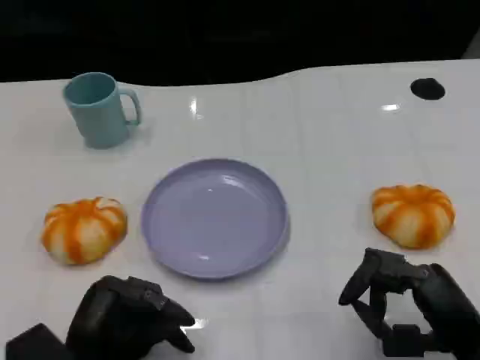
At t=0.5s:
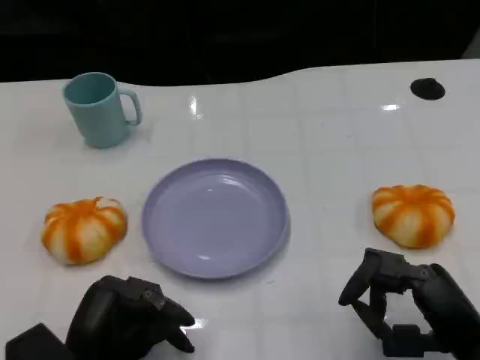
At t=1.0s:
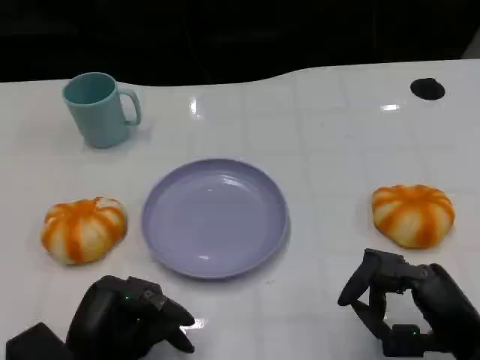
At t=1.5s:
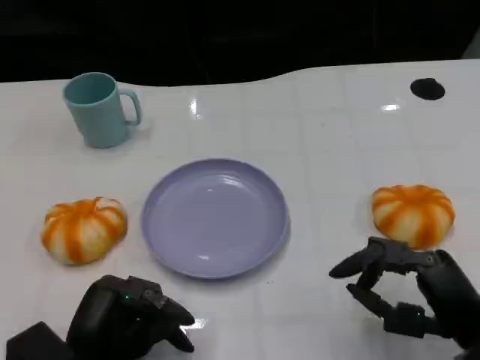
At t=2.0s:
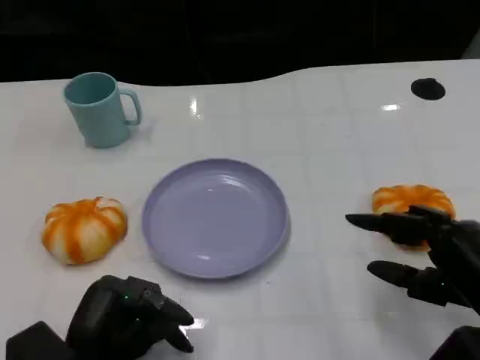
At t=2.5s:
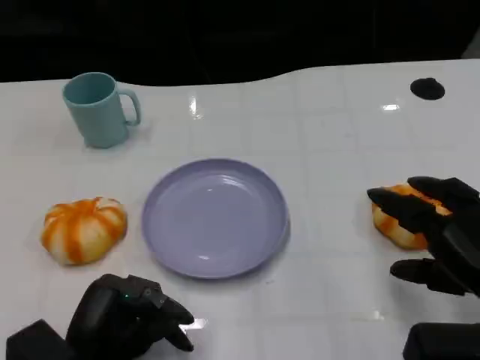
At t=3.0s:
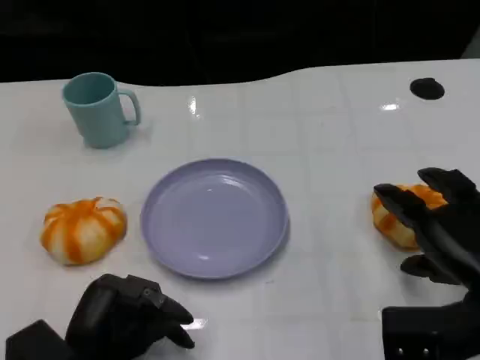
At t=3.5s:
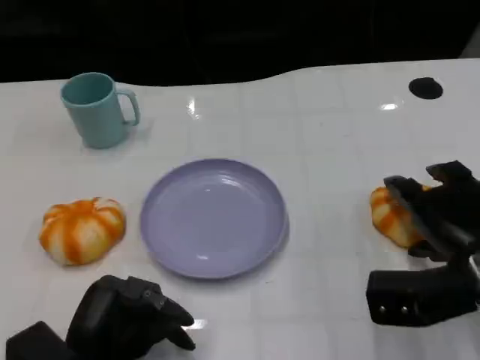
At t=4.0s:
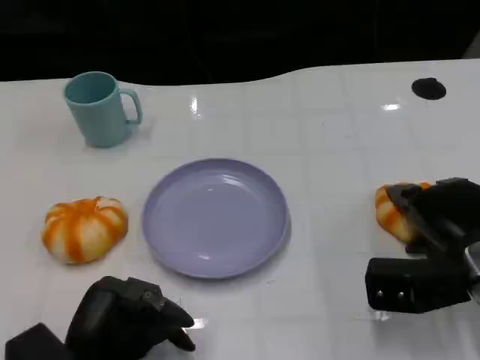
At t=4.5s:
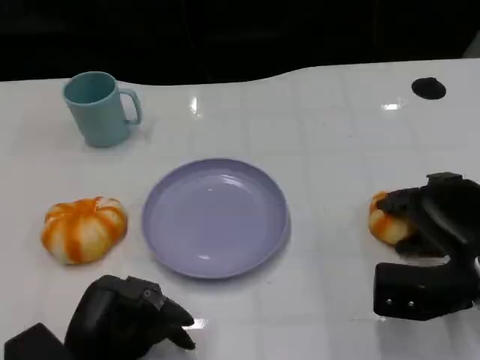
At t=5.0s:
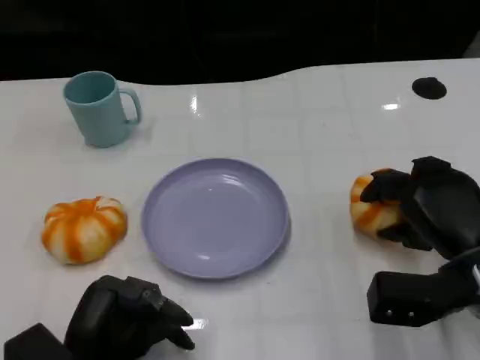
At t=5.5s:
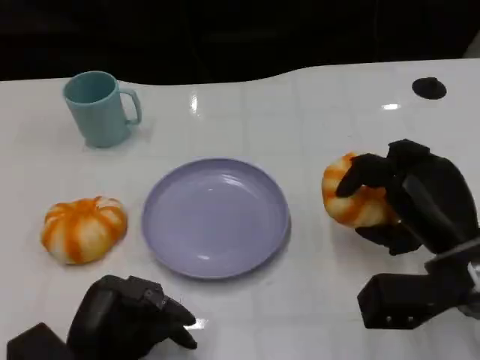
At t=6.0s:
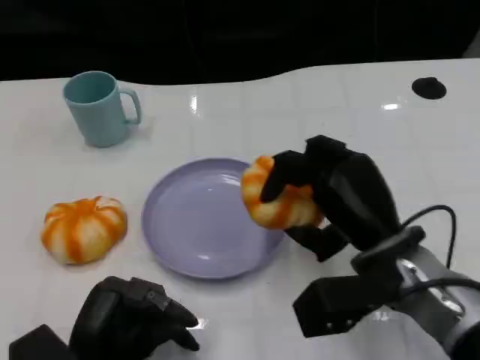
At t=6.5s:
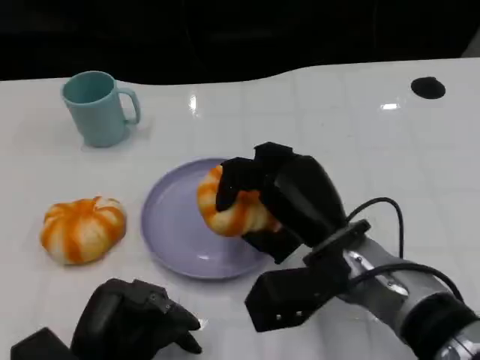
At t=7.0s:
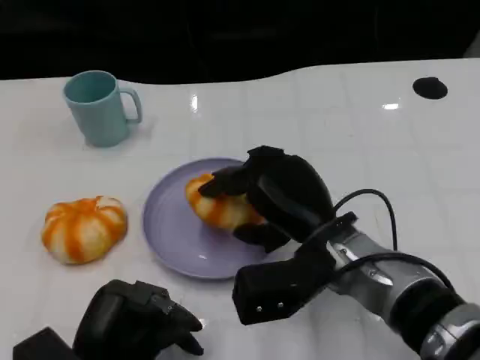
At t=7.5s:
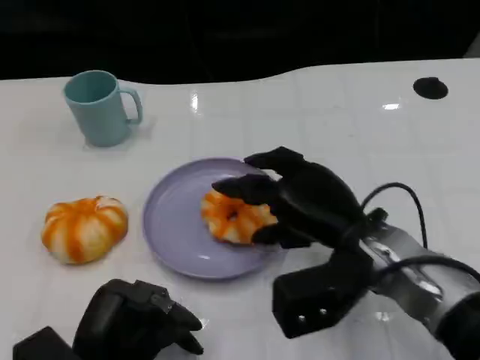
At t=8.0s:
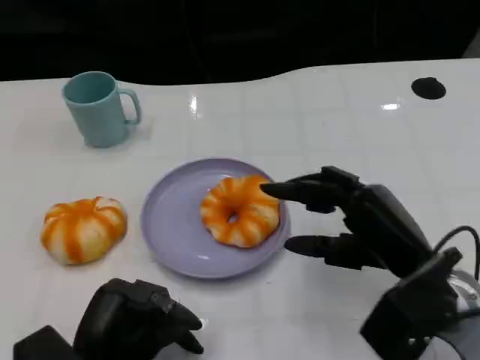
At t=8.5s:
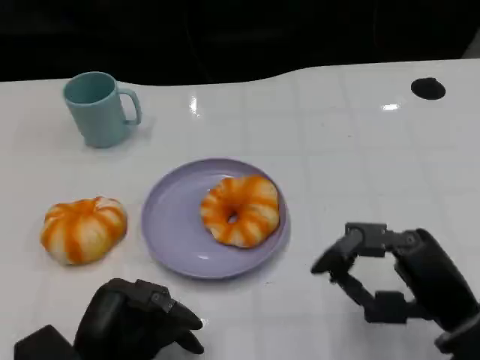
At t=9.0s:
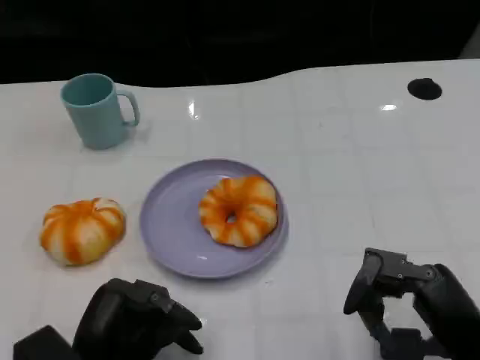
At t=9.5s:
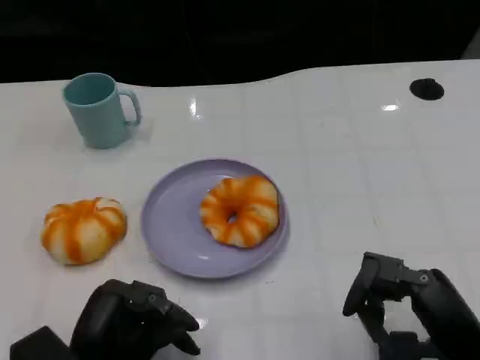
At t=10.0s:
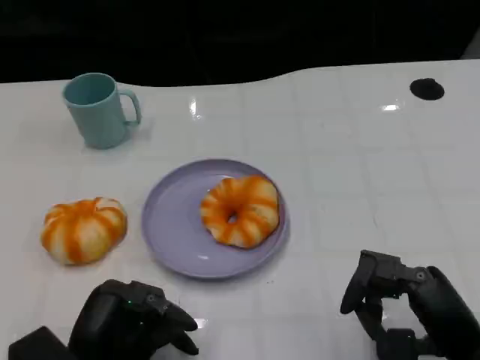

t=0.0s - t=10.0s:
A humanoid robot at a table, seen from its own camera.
Task of the whole recording: Grasp the bread from the table and place it into the plate.
t=2.0s - t=4.0s: The right hand is displaced forward by roughly 10 cm.
t=4.0s - t=6.0s: The right hand moves to the left, roughly 10 cm.
t=6.0s - t=8.0s: The right hand moves roughly 5 cm.
t=8.0s - t=10.0s: The right hand moves backward, roughly 5 cm.

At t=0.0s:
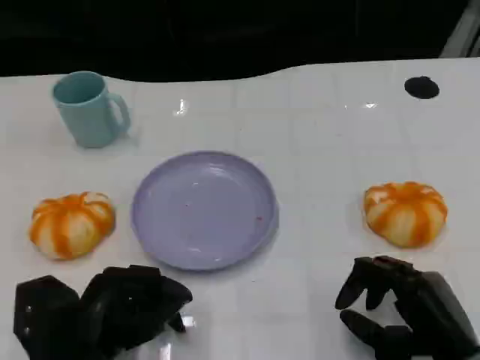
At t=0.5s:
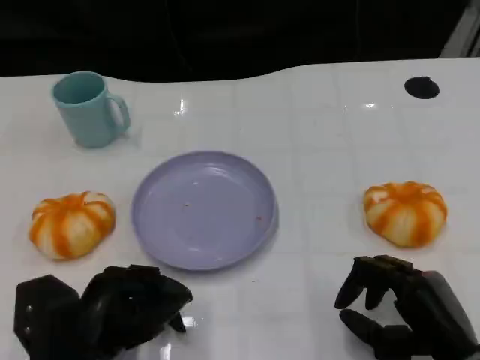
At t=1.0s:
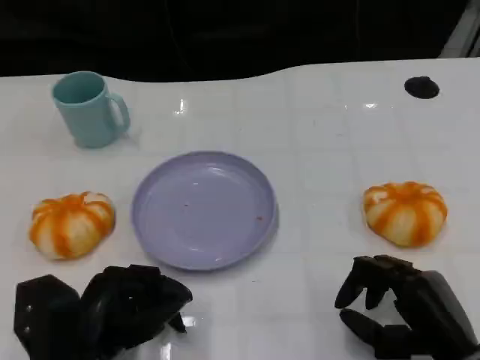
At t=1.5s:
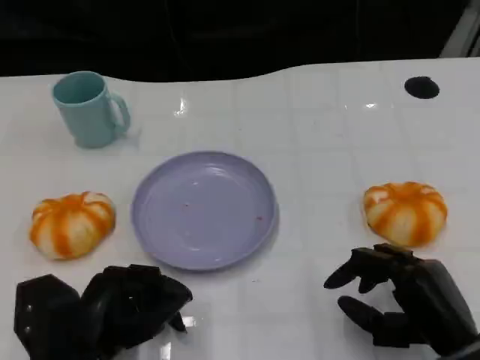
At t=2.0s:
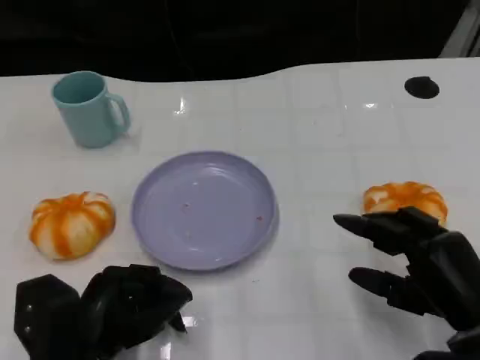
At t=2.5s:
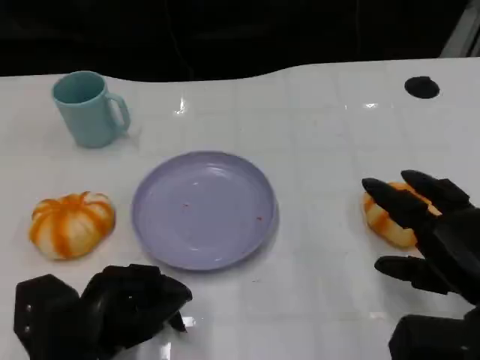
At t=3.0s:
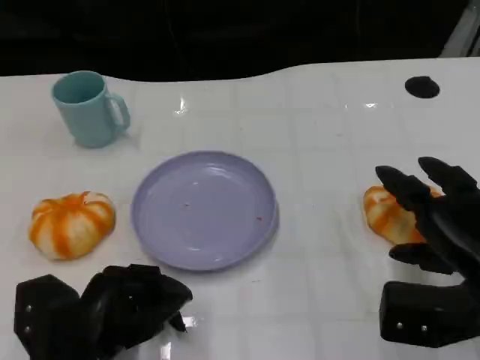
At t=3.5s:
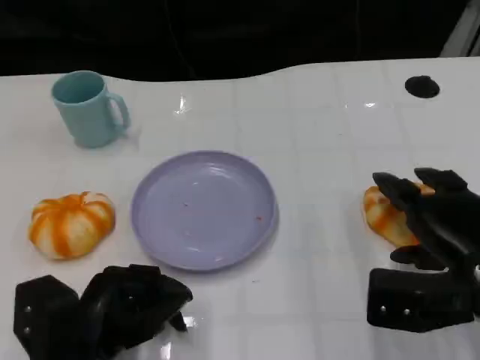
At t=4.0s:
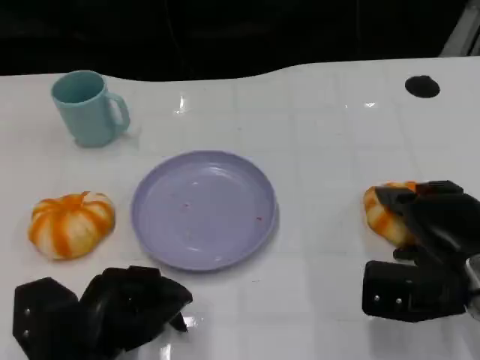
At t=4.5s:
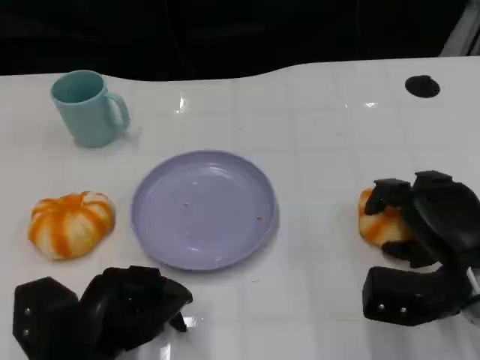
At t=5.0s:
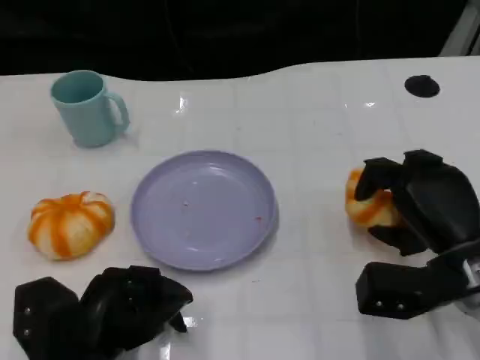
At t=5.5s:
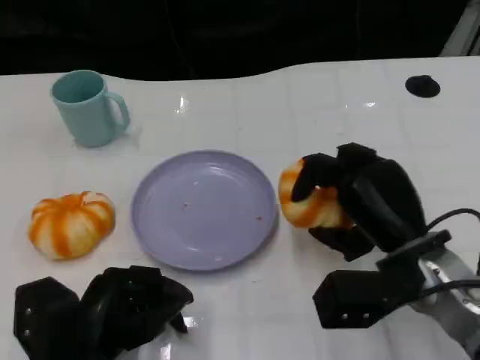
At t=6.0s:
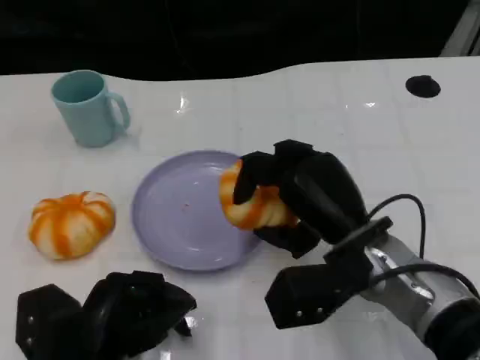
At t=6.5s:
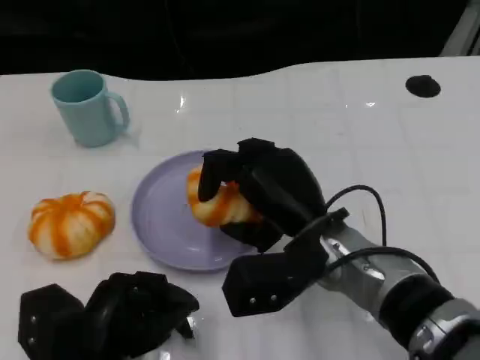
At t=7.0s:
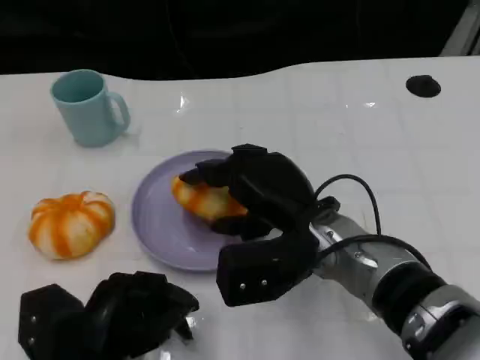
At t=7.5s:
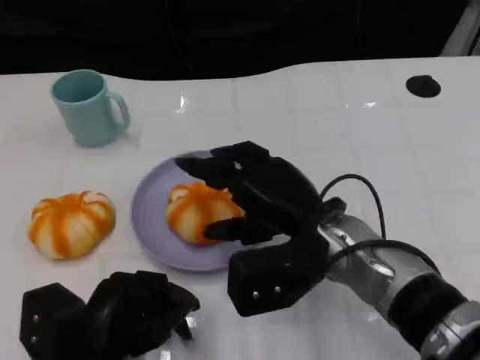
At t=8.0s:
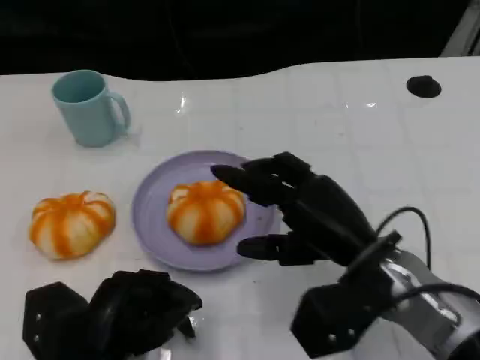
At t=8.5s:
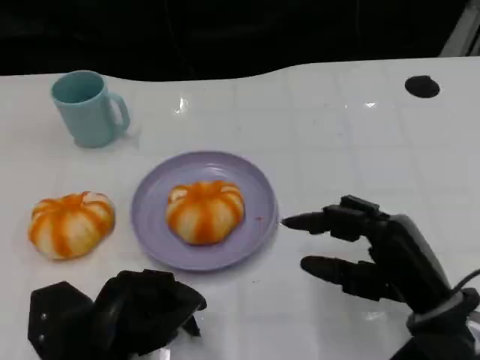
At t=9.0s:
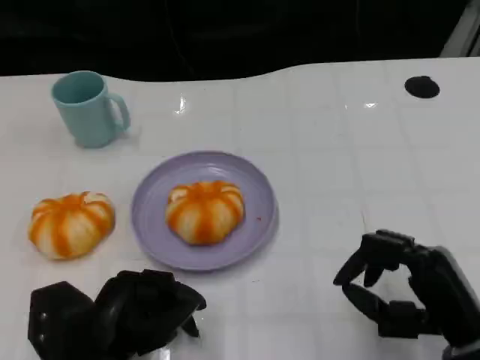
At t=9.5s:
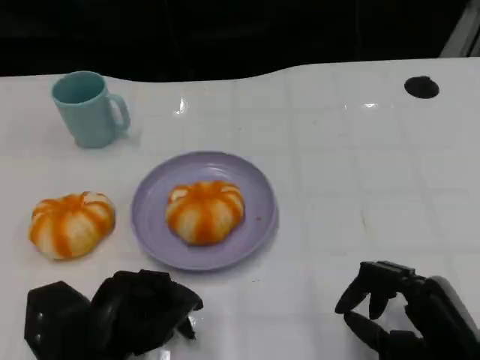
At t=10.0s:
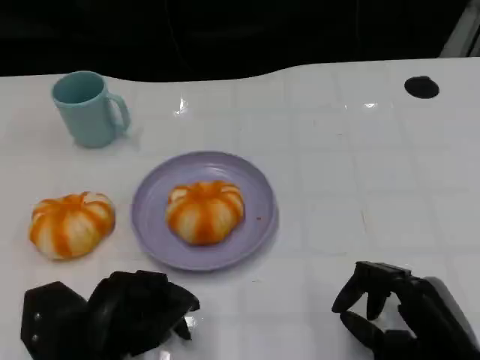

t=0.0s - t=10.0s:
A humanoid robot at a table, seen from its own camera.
Task of the whole recording: Grasp the bread from the table and place it into the plate.
t=0.0s - t=2.0s: There are only small adjustments of the hands.
t=2.0s - t=4.0s: The right hand moves forward, roughly 5 cm.
t=4.0s - t=6.0s: The right hand travels to the left by roughly 10 cm.
t=6.0s - t=8.0s: The hands move only a little.
t=8.0s - t=10.0s: The right hand shifts approximately 10 cm backward, to the right and downward.

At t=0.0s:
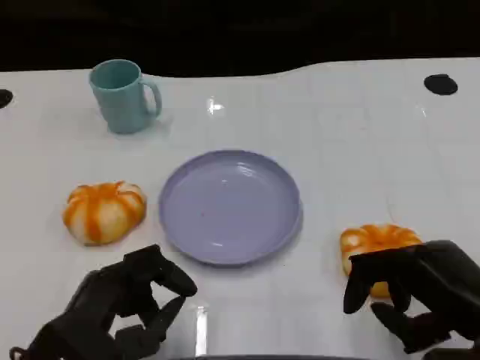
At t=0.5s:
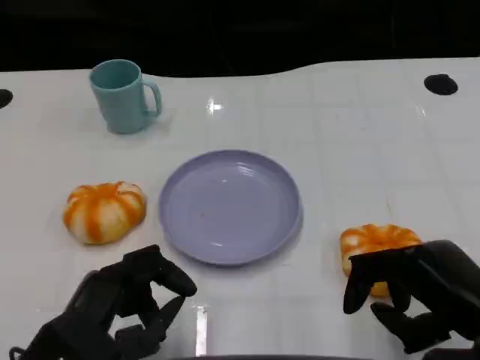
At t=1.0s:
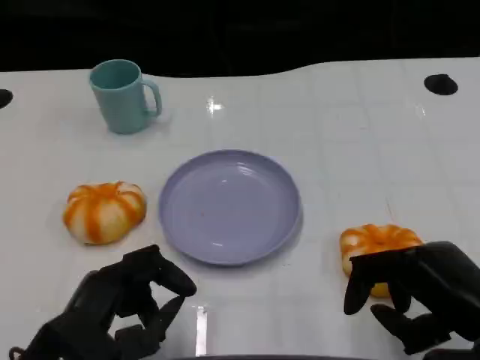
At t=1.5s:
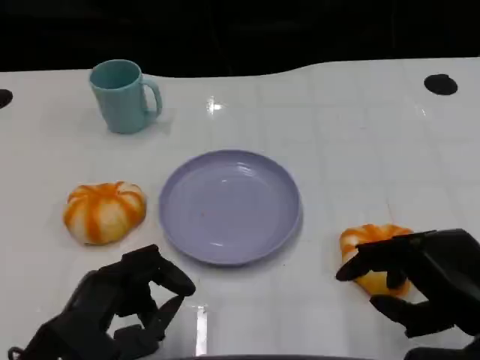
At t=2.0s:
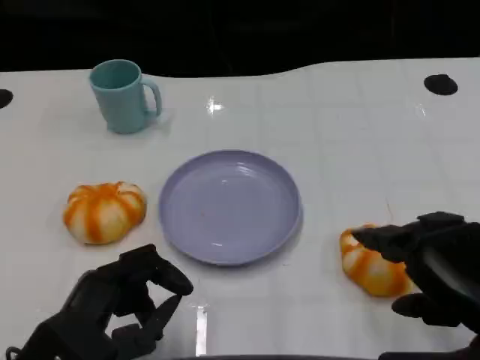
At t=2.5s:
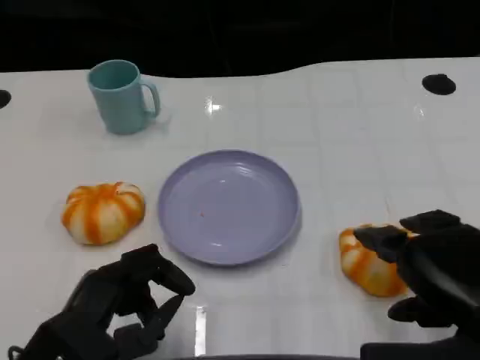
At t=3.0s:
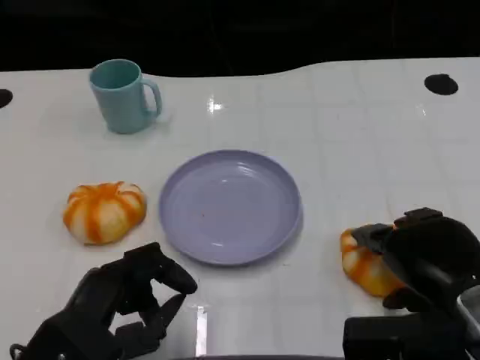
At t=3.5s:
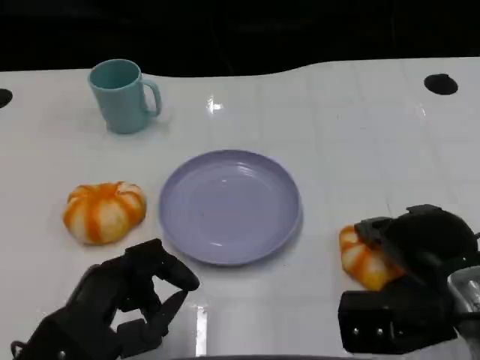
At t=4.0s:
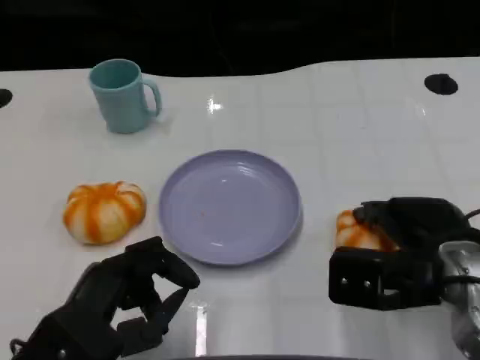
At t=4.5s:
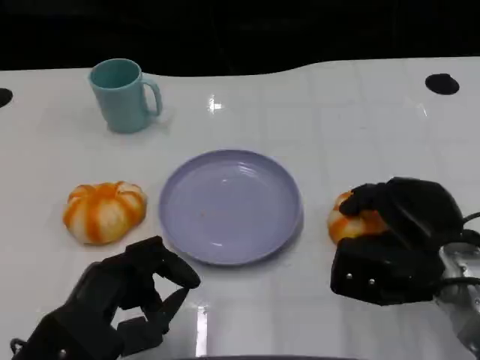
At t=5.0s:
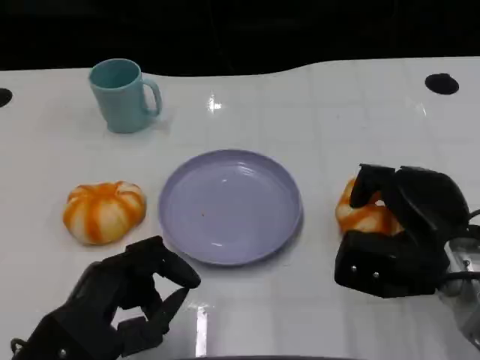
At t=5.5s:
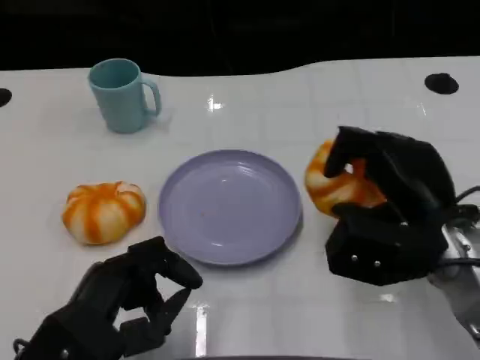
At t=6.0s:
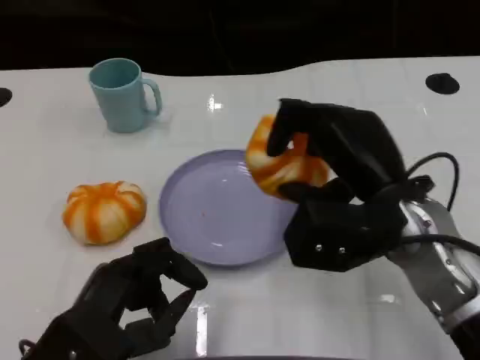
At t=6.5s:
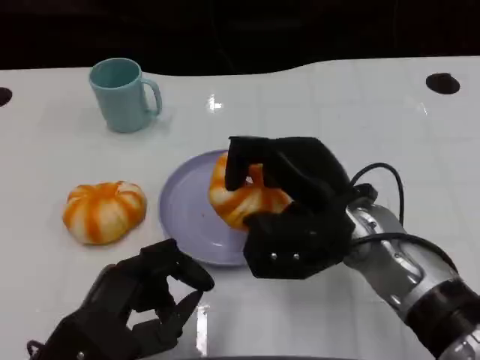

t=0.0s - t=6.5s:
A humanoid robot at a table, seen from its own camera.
Task of the whole recording: Grasp the bread from the table and place it into the plate.
t=2.0s - t=4.5s: The right hand travels forward and downward by approximately 10 cm.
t=4.5s - t=6.5s: The right hand travels to the left by about 10 cm.
